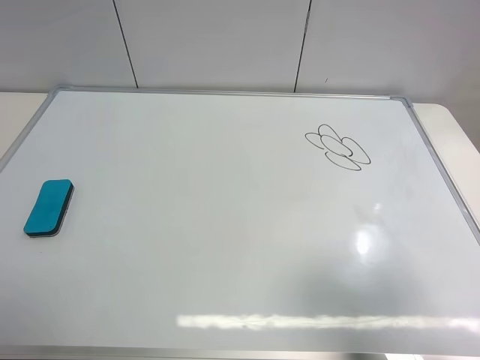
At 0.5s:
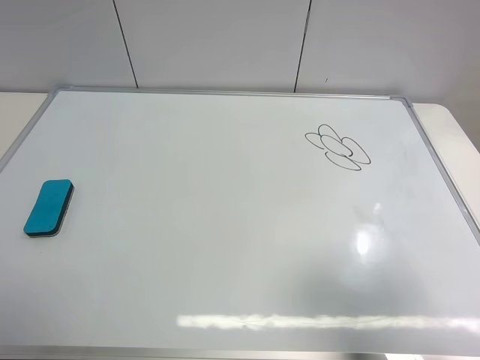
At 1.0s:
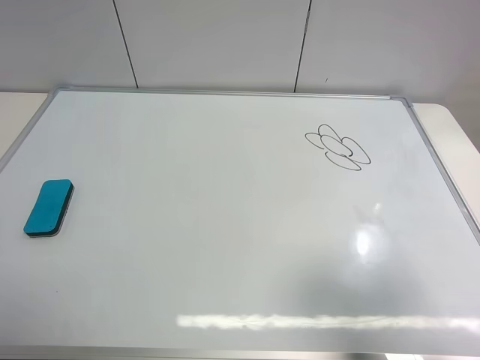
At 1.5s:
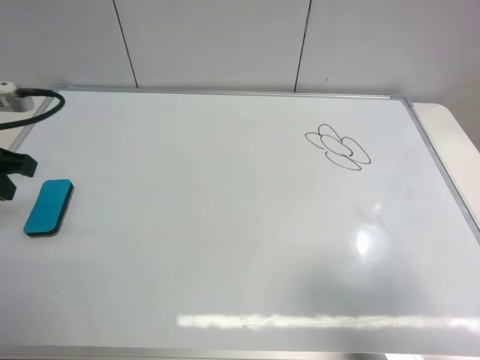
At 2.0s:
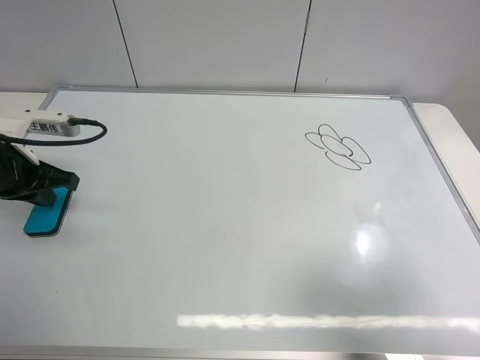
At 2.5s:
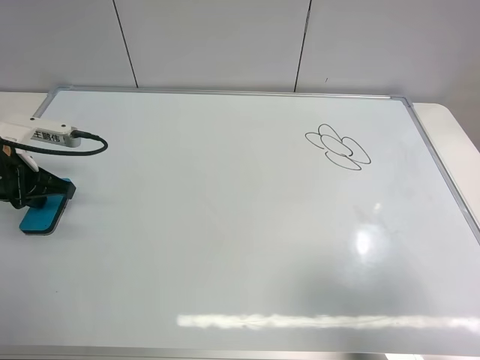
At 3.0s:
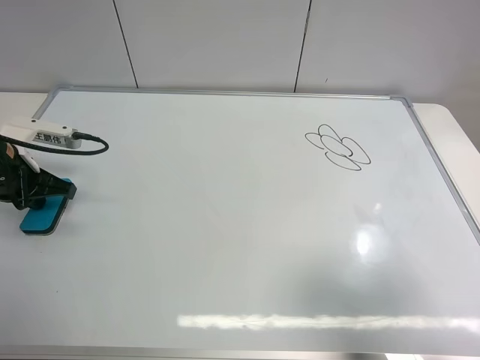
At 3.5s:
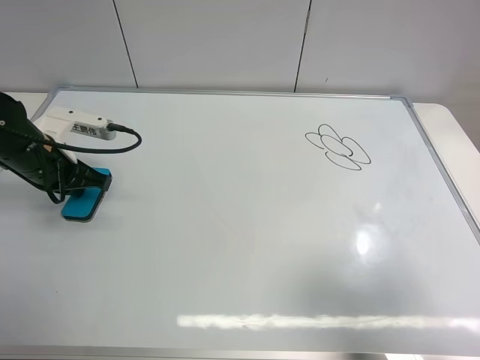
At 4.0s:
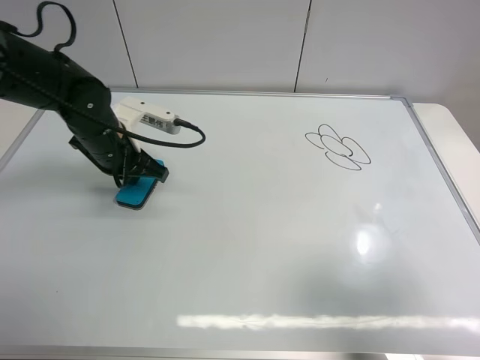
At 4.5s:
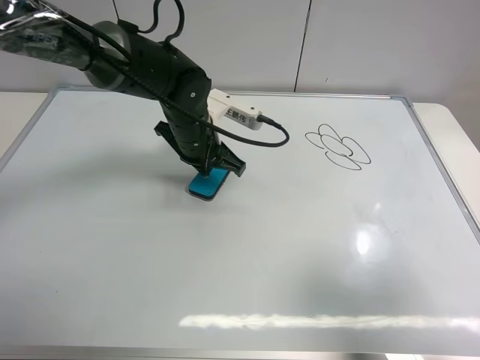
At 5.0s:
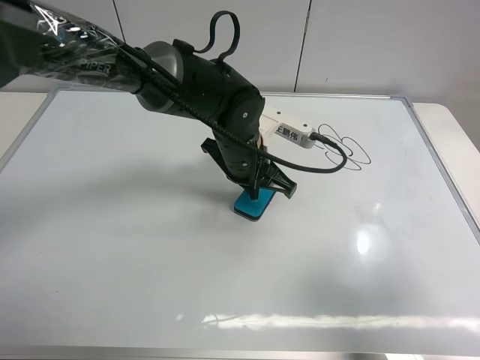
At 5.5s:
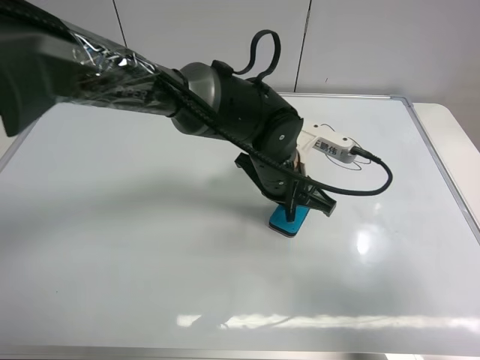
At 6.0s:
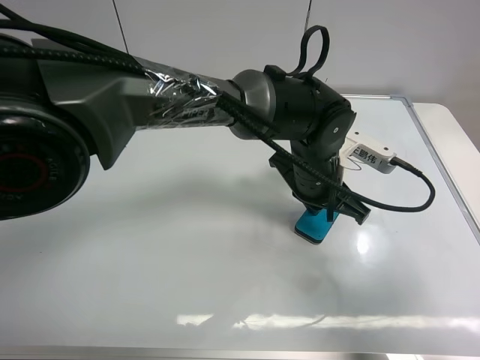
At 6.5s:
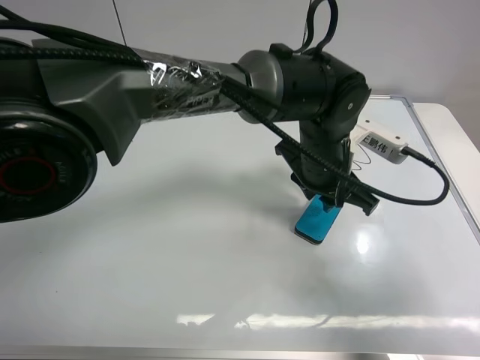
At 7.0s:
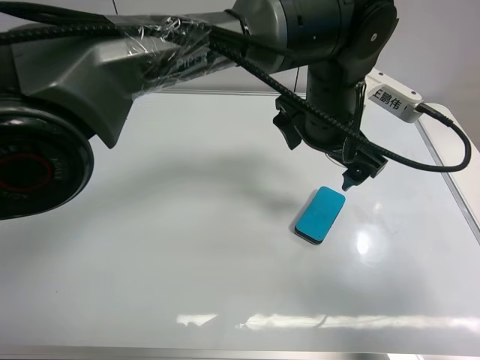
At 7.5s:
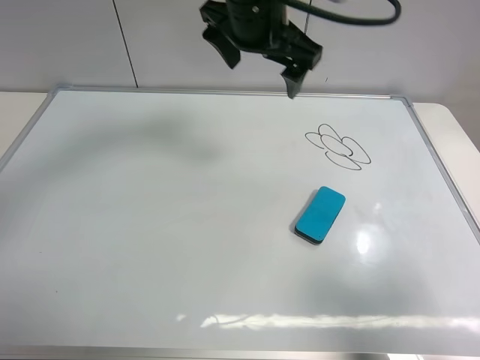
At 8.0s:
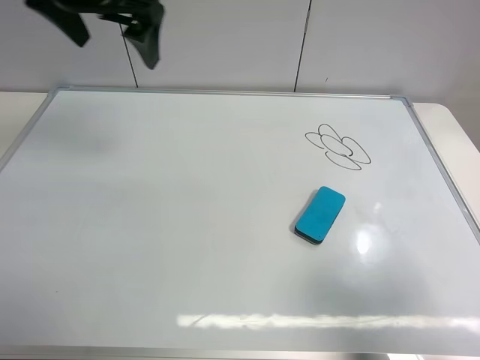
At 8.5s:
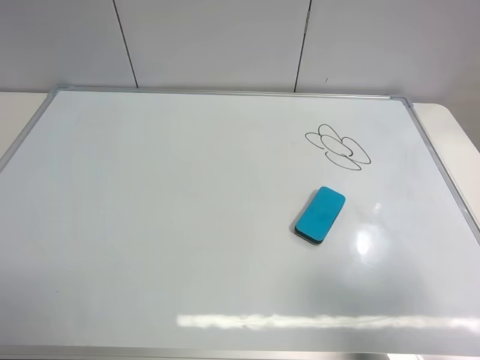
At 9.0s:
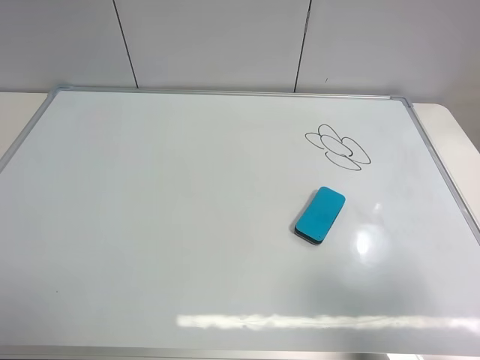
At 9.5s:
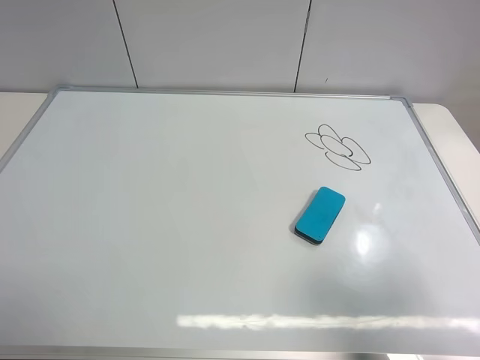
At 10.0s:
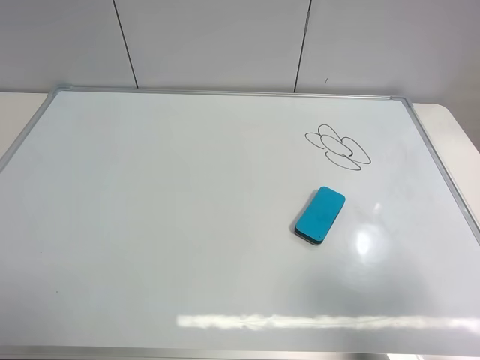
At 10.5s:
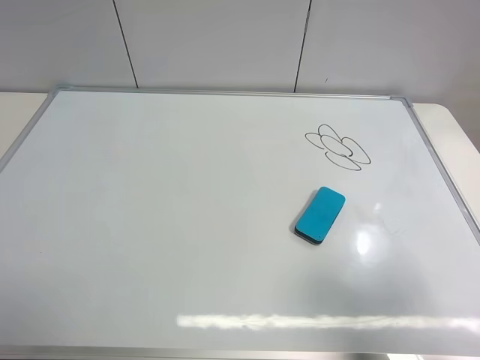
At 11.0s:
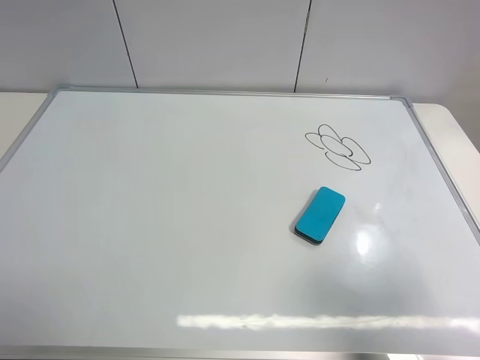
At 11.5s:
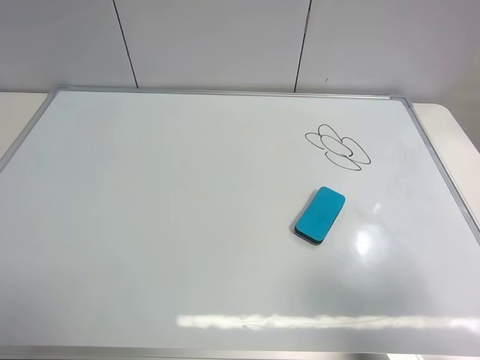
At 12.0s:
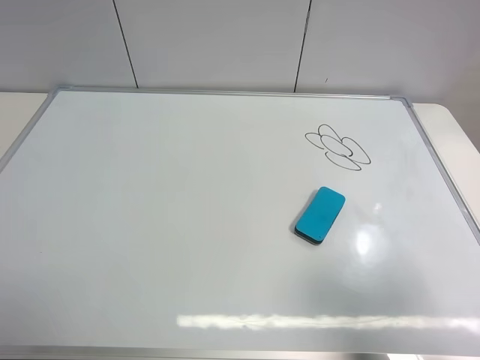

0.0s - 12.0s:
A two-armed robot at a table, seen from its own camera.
Task of the whole recording: use the left gripper to place the eraser in the right, use the right gripper to pick up the eraser, wipe the notes on the whiteboard clean, and then put it down.
Step, 0.0s - 6.5s: Move the board eraser to the right of the whiteboard with left gripper.
0.0s - 2.0s: The left gripper travels forward and downward by about 30 cm, and closes up.
2.0s - 4.0s: The left gripper heads to the right and forward, covering some 15 cm.
4.0s - 6.0s: The left gripper travels to the right by roughly 30 cm.
6.0s - 8.0s: The left gripper moves to the left and upward, roughly 35 cm, and opens.
8.0s - 10.0s: The left gripper is displaced backward and to the left by approximately 35 cm.
10.0s - 12.0s: Both grippers stay about where they are.

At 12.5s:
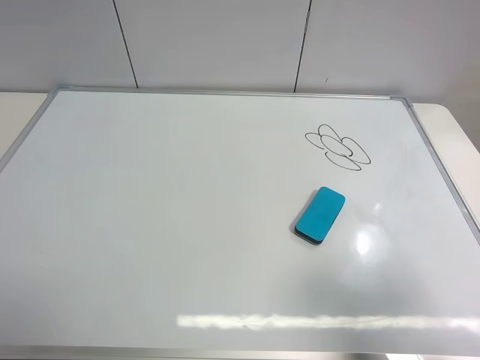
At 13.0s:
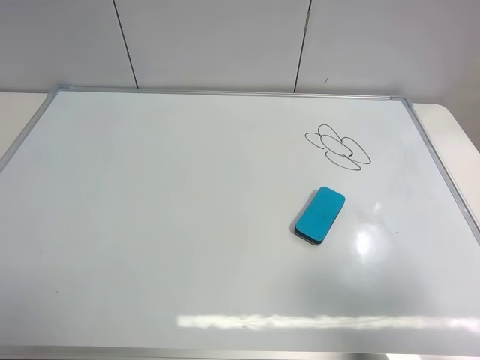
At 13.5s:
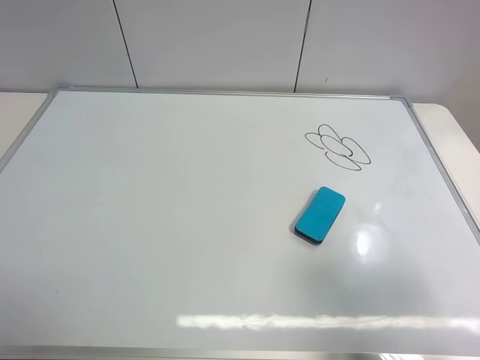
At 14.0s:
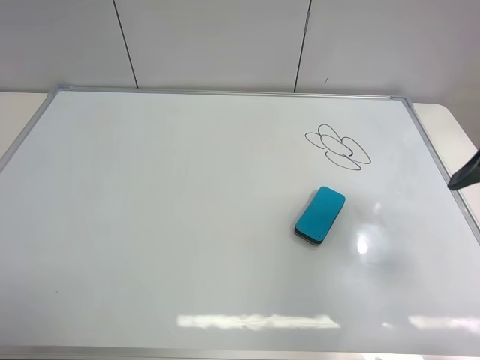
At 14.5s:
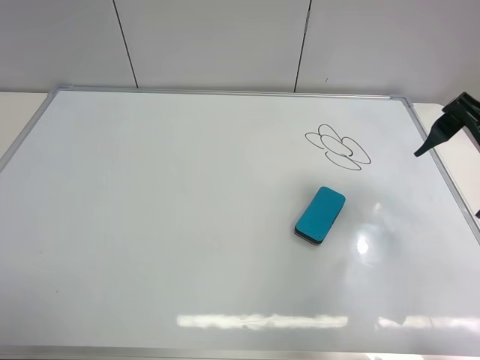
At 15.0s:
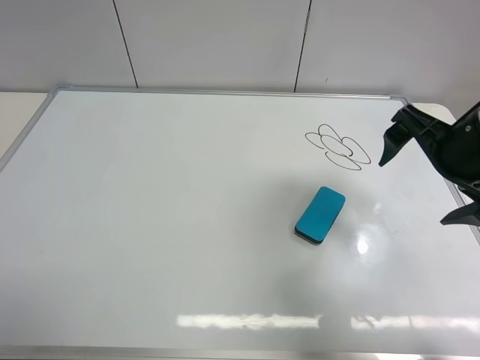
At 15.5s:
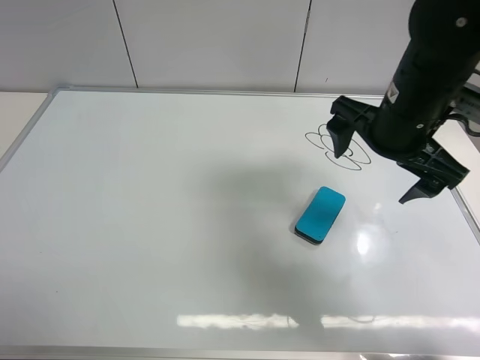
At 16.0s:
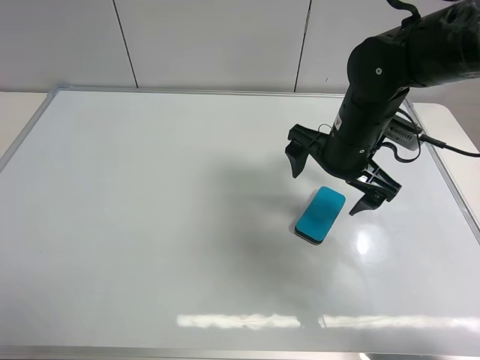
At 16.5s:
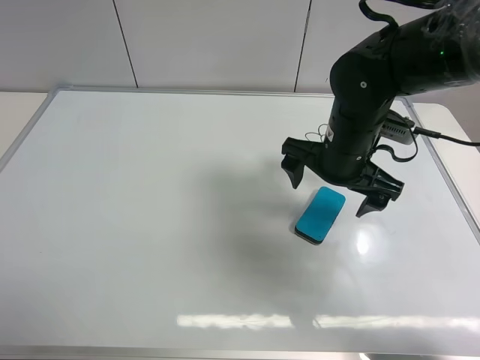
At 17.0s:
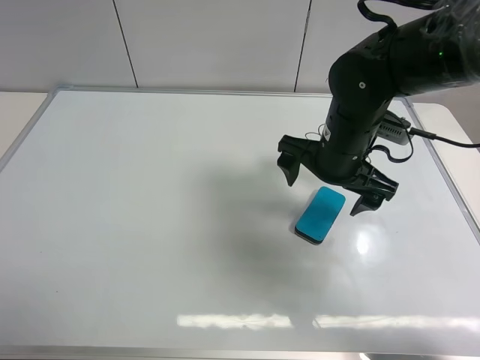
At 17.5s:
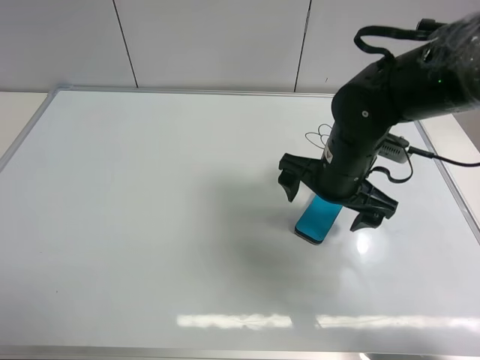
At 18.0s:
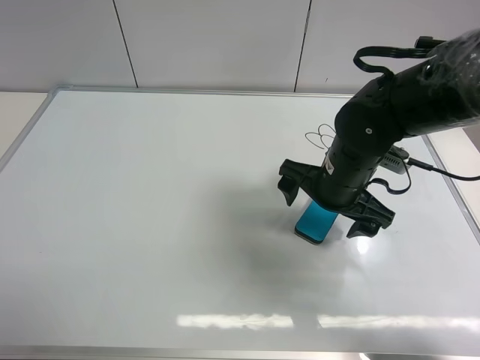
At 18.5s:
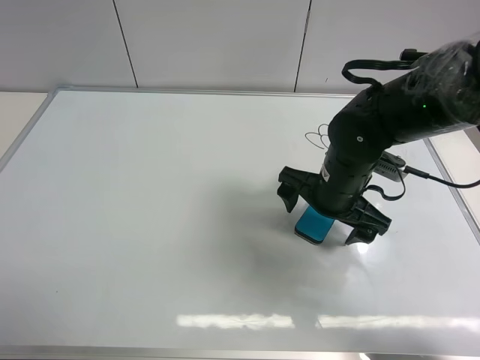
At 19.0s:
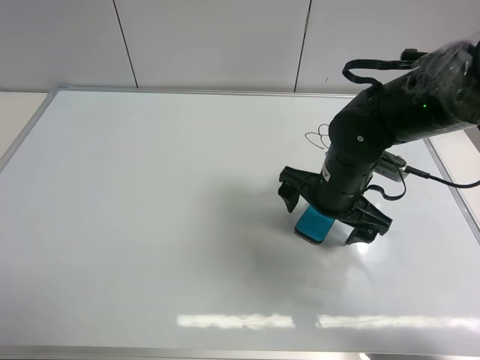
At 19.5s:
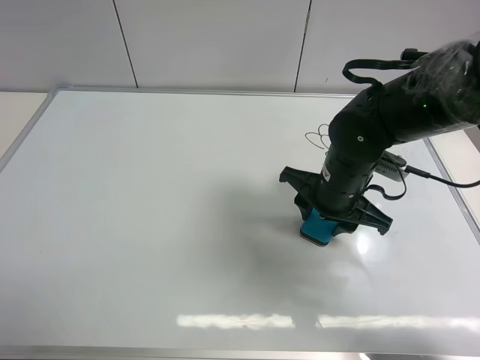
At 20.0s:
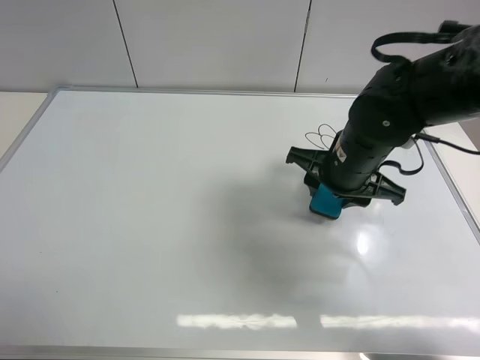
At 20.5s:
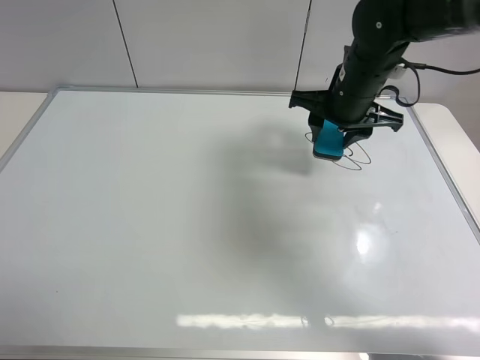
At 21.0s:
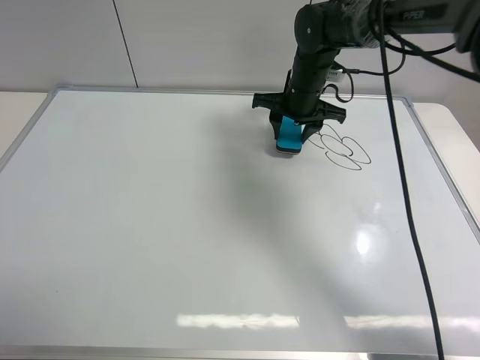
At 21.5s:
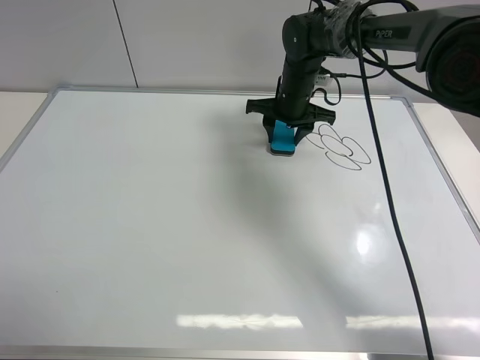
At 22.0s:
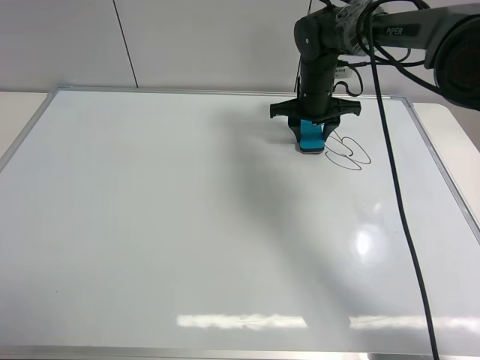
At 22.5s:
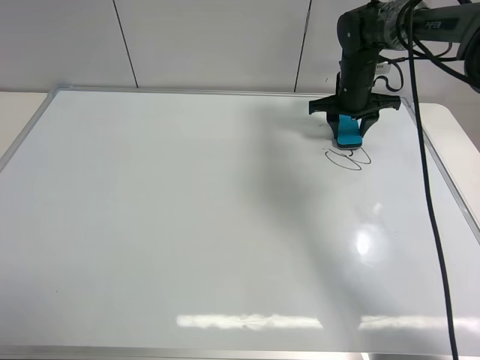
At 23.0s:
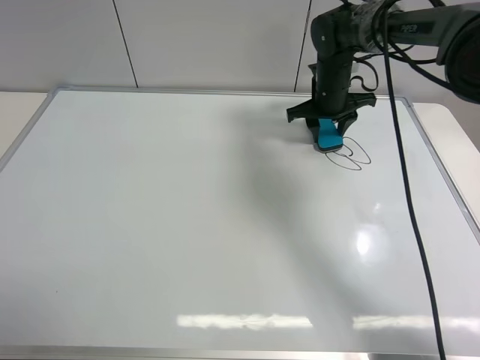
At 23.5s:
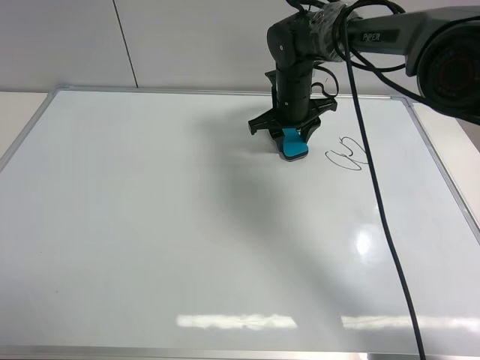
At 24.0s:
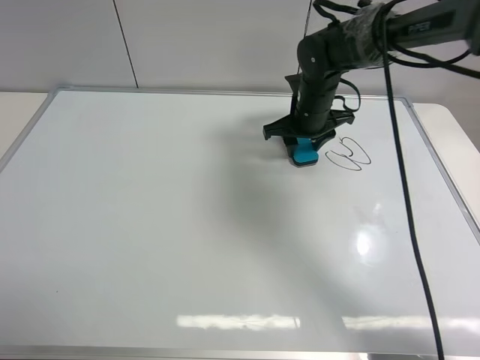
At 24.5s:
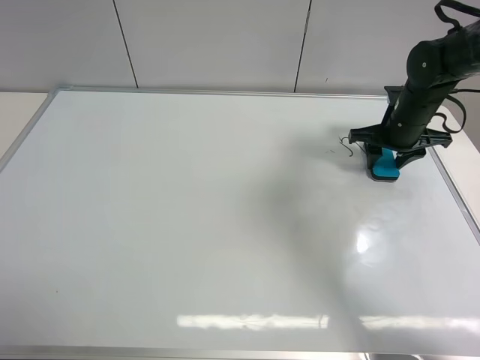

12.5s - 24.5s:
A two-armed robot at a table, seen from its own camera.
Task of the whole recording: use the left gripper to place the eraser in the right, use the right gripper to pick up the eraser, wipe the notes on the whiteboard clean, and then put it down.
Step, 12.5s - 19.5s: Pick up the board eraser with right gripper.
12.5s - 14.5s: The right gripper goes about 20 cm forward.
14.5s - 16.5s: The right gripper travels to the left, downward and forward by some 20 cm.
16.5s - 18.5s: The grippers stay close to where they were, moving slightly.
18.5s - 20.5s: The right gripper goes some 15 cm forward and upward, and closes up.
20.5s - 22.5s: The right gripper travels forward, downward and to the right by approximately 15 cm.
22.5s - 24.5s: The right gripper travels backward and to the right by about 10 cm.

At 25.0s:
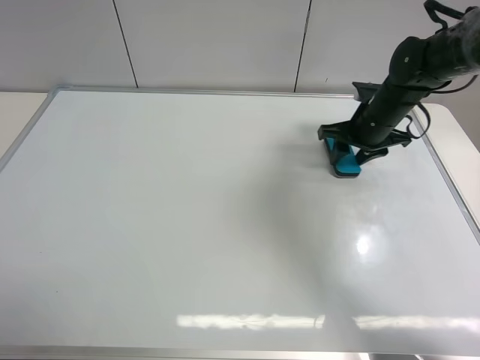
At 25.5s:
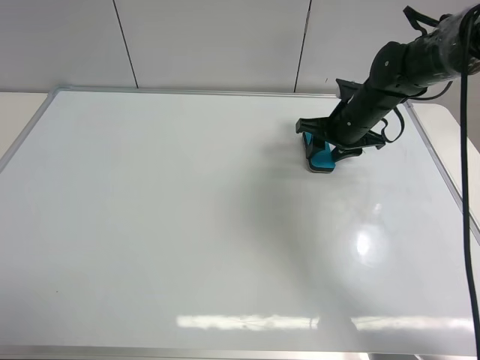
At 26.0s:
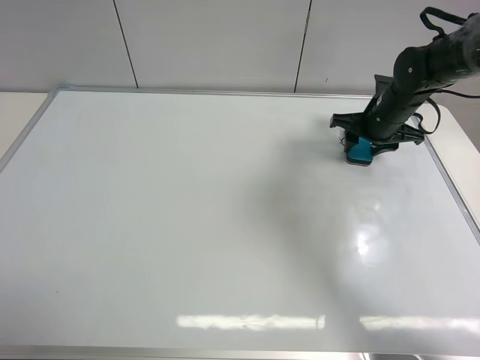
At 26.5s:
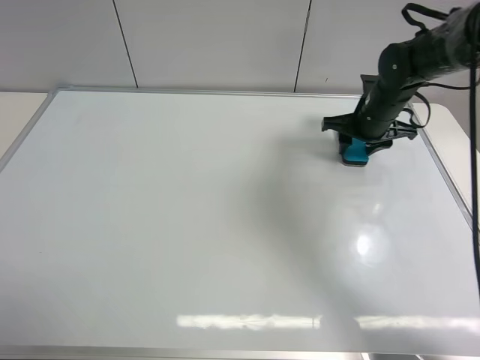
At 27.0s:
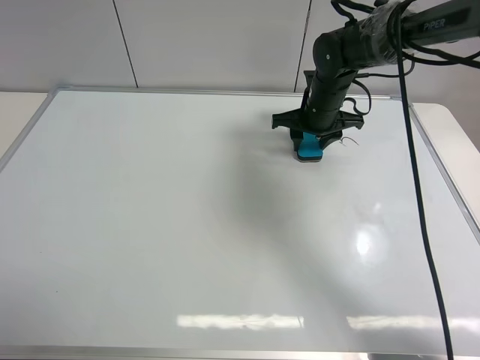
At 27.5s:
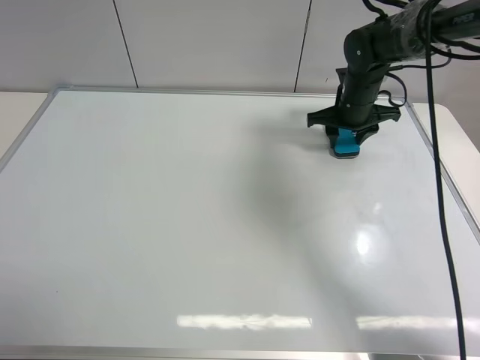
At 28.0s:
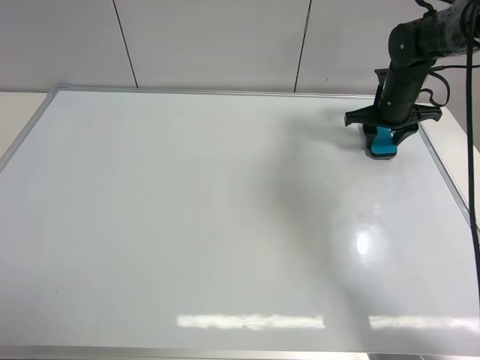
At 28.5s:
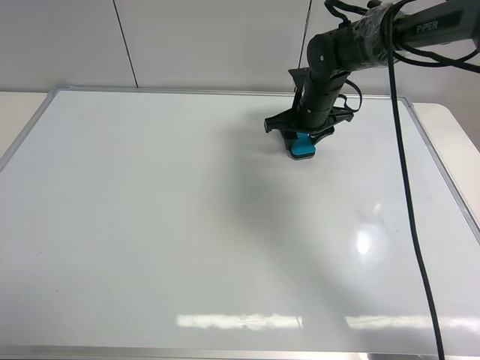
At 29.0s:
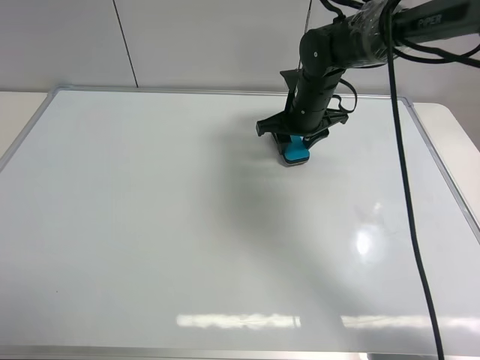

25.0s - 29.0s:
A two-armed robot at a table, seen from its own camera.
Task of the whole recording: use the left gripper to place the eraser in the right, use the right gripper to pick up the eraser, wipe the notes on the whiteboard clean, and then put it down.
Step, 25.0s - 28.5s: Wipe off the writing on the board with right gripper.
25.0s - 27.0s: The right gripper is displaced to the left by about 10 cm.
27.0s - 29.0s: The right gripper goes to the right and returns, roughly 15 cm each way.
